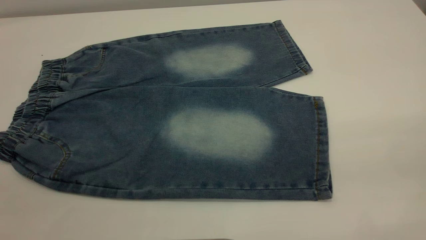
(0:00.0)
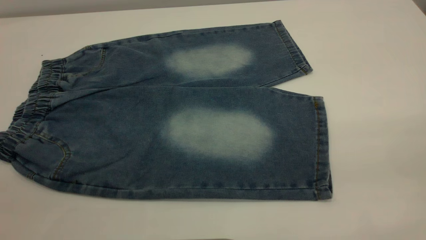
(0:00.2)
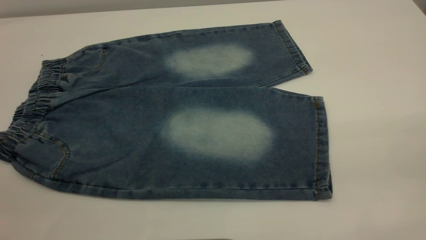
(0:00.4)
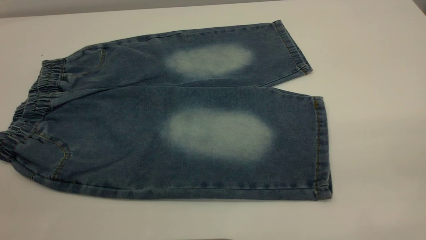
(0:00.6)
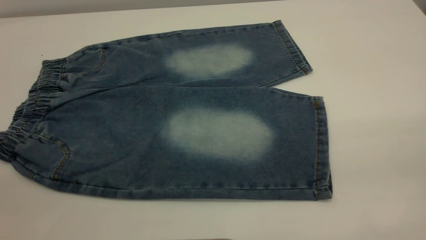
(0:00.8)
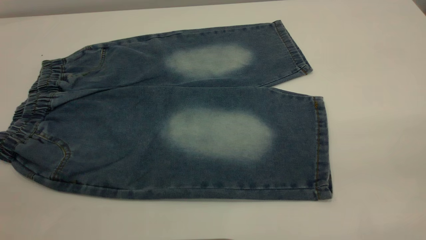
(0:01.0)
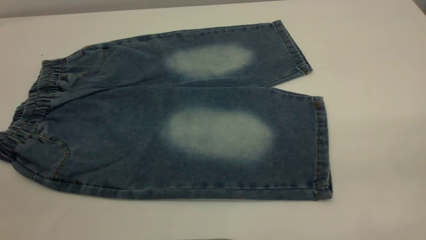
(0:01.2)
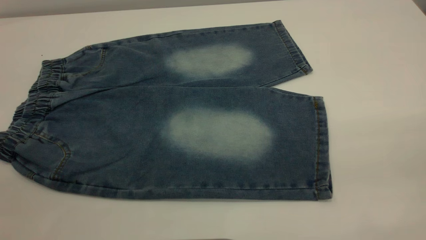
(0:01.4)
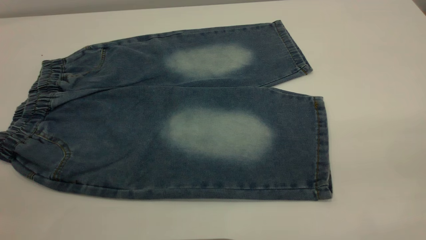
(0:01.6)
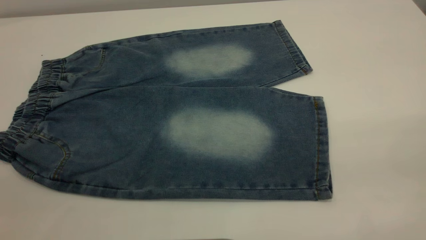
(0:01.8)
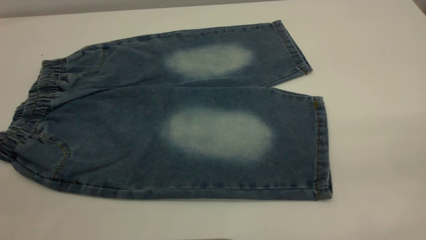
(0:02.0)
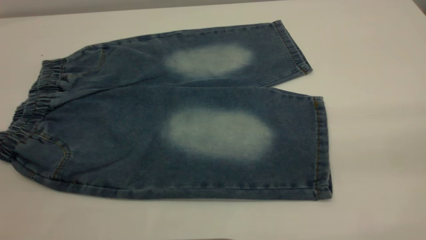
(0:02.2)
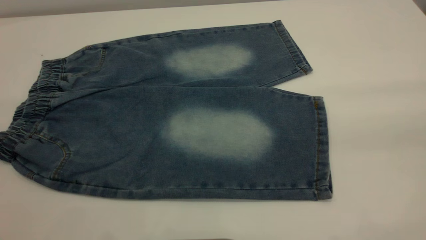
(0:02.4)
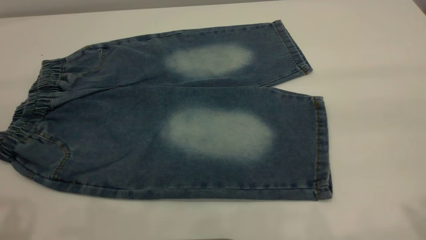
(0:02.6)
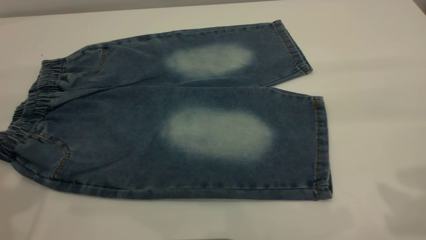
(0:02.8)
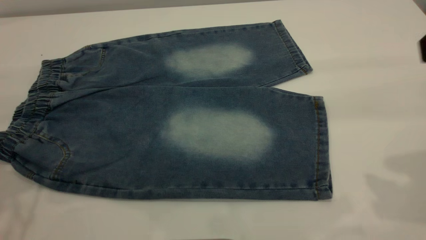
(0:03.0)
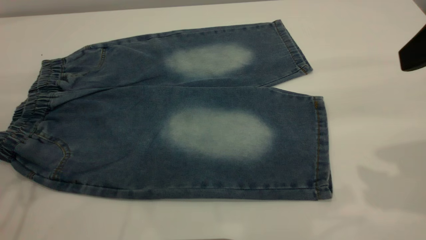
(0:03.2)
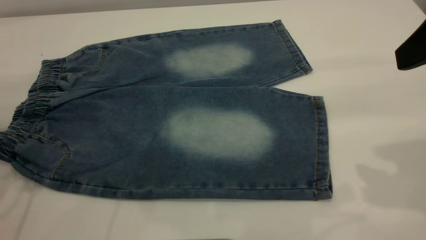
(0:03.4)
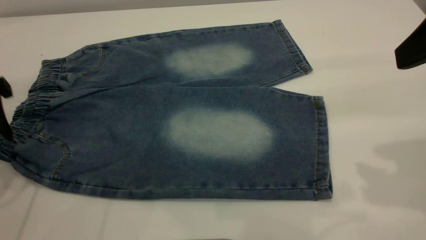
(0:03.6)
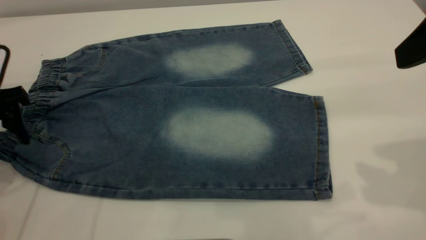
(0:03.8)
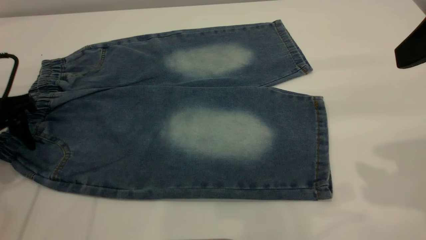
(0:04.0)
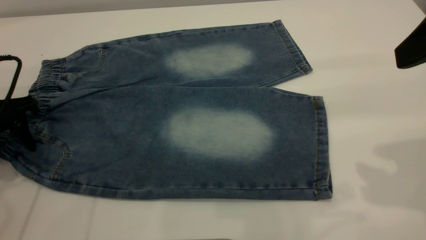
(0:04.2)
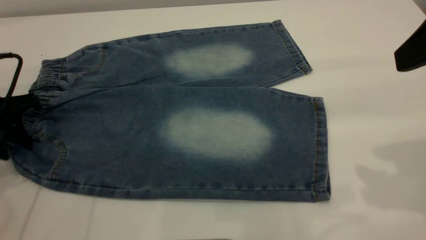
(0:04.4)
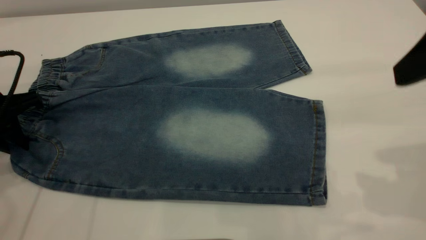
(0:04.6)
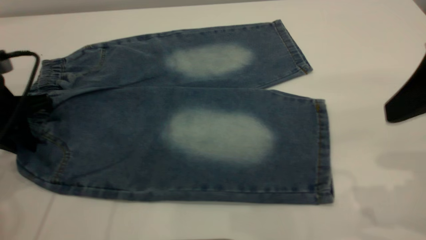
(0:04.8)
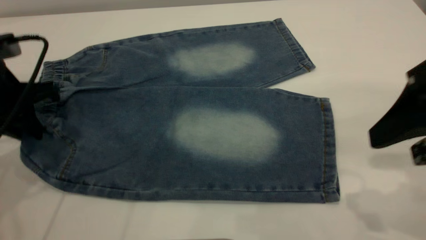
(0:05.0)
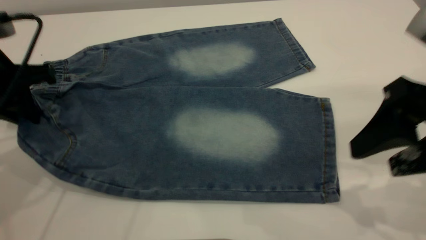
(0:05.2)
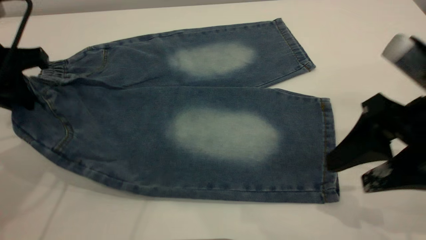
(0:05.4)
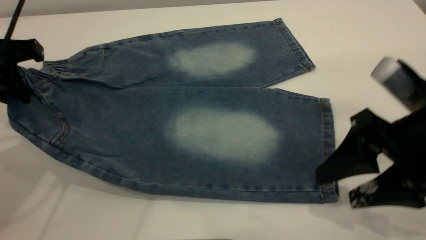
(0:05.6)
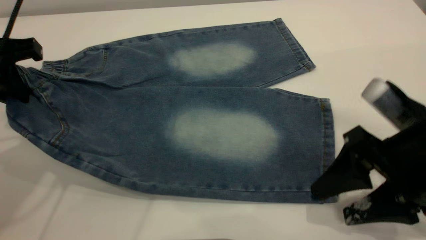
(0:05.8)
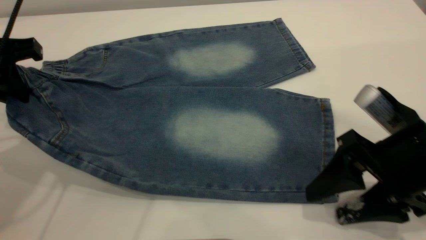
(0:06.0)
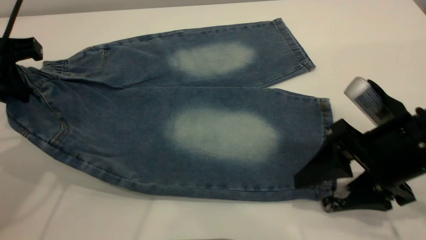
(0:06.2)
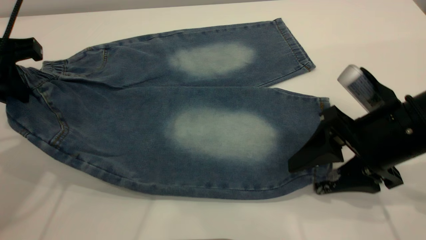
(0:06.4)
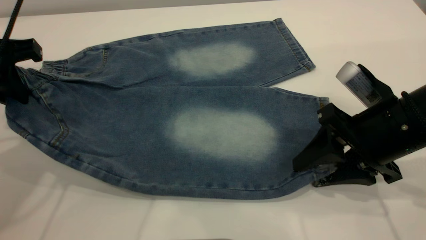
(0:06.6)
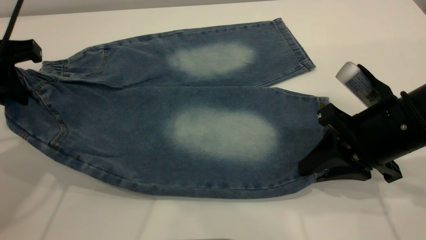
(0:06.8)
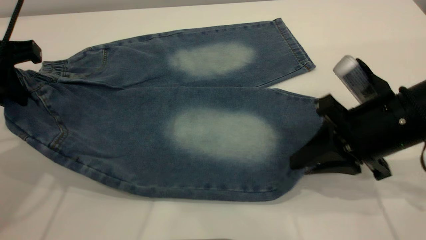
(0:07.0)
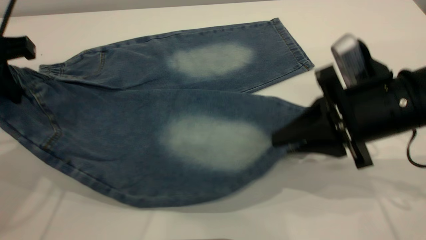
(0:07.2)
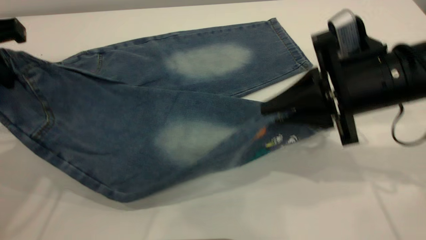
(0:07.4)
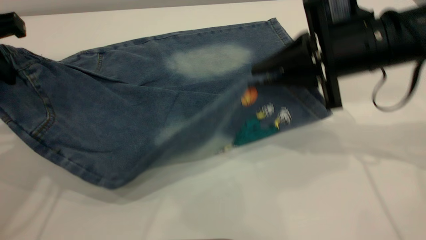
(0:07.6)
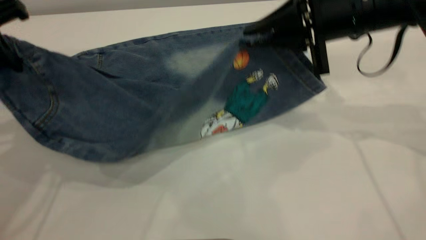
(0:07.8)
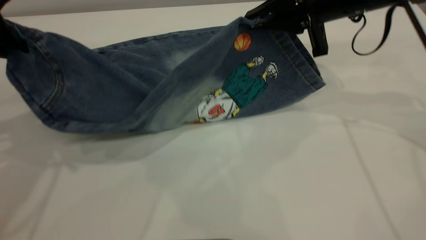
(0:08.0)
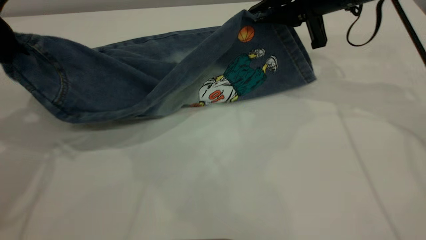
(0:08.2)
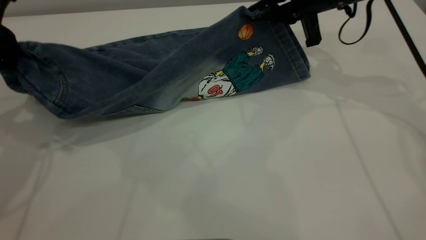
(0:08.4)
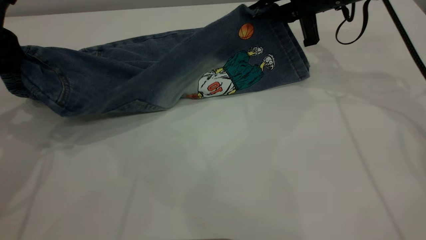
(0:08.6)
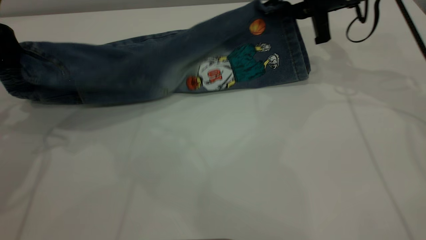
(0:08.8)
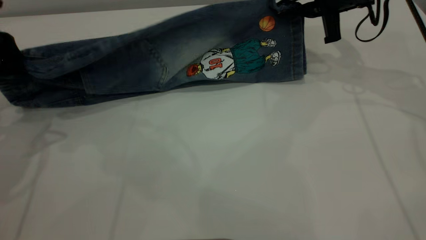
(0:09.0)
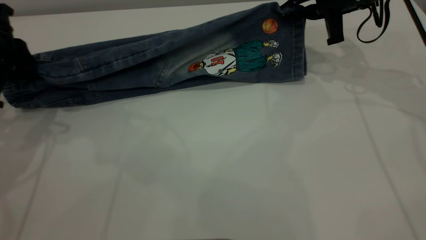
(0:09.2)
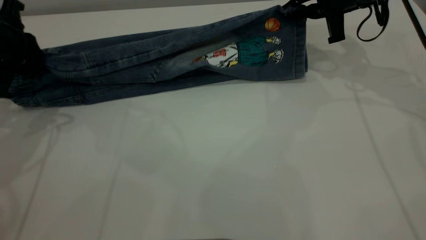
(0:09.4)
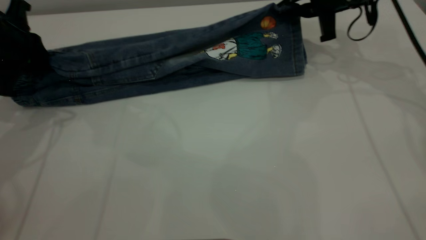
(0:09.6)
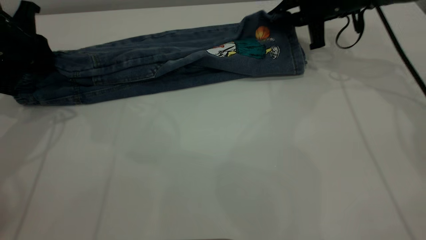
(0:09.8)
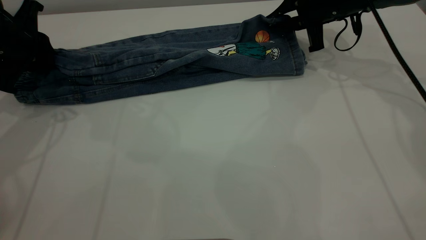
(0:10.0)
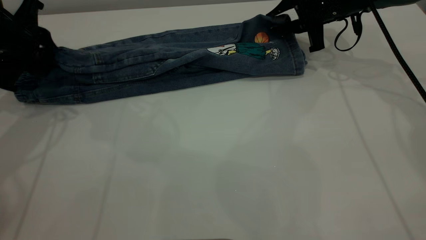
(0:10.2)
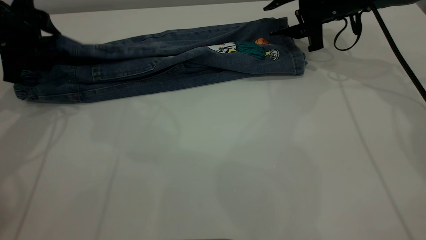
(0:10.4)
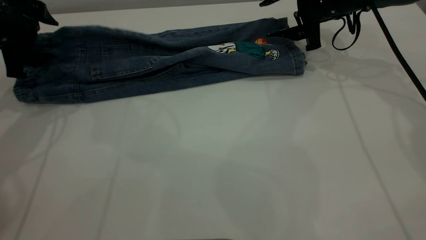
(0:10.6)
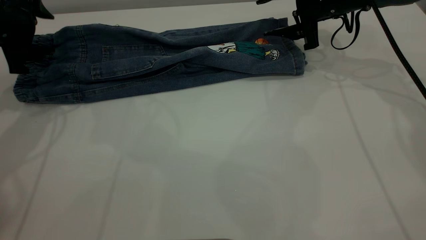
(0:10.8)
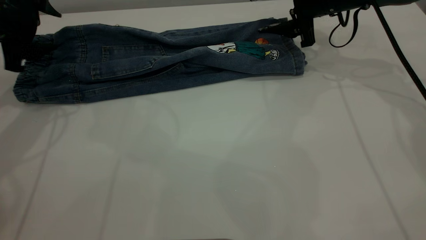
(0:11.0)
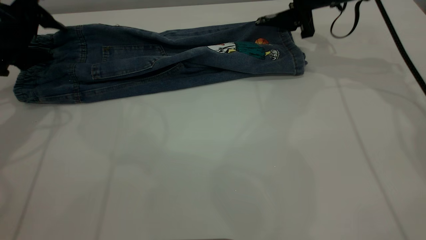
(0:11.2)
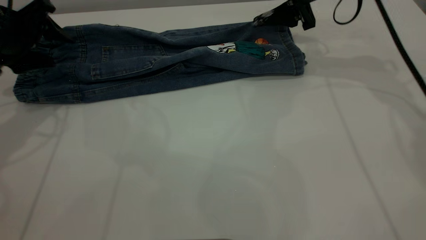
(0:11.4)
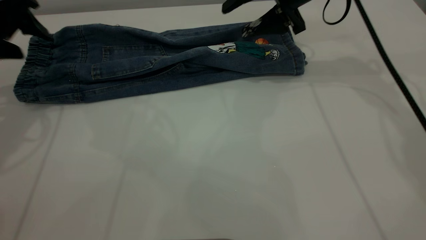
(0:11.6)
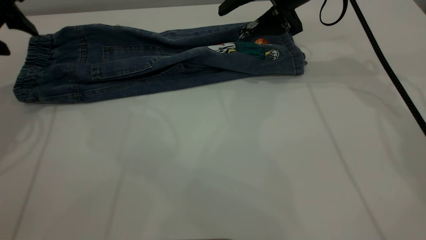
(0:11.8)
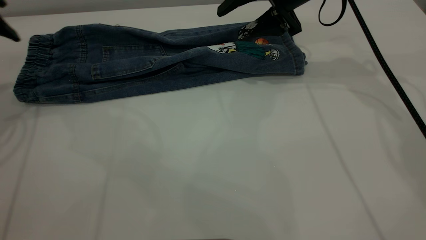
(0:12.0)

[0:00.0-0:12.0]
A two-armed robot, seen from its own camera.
0:00.0 to 0:01.6: Neither gripper changes place.
0:03.0 to 0:04.4: The left gripper heads downward and forward, covering about 15 cm, and closes up.
0:04.4 to 0:06.0: The right gripper travels downward by about 20 cm; the left gripper moves upward, some 10 cm.
0:06.0 to 0:07.6: The right gripper travels forward and upward by some 15 cm, and closes up.
0:07.6 to 0:09.0: The right gripper shifts about 15 cm forward; the left gripper is displaced downward by about 5 cm.
0:09.0 to 0:10.4: The left gripper is displaced forward by approximately 5 cm, and opens; the right gripper ends up about 5 cm from where it was, and opens its fingers.
0:10.4 to 0:12.0: The right gripper is displaced to the left and upward by about 10 cm. Meanwhile the left gripper moves to the left, approximately 5 cm.

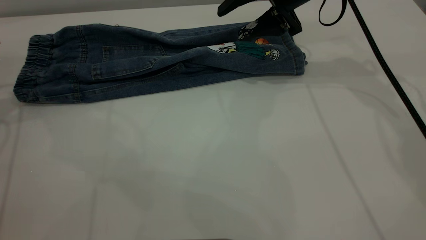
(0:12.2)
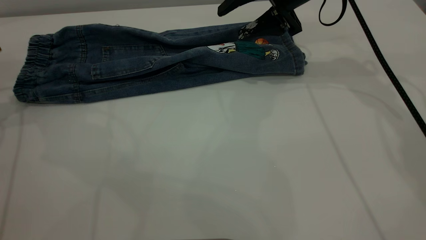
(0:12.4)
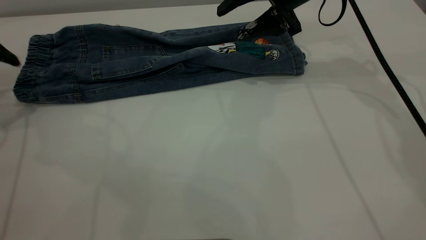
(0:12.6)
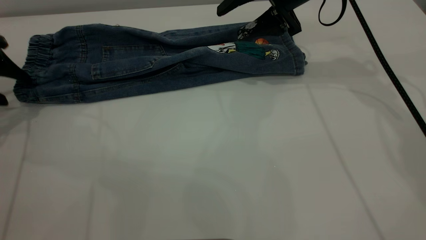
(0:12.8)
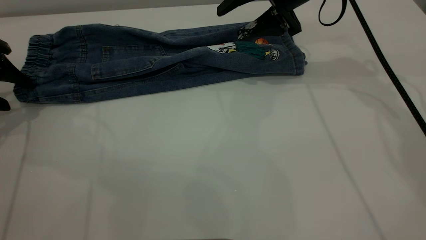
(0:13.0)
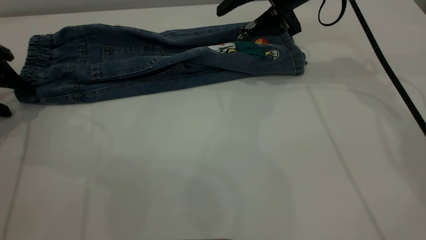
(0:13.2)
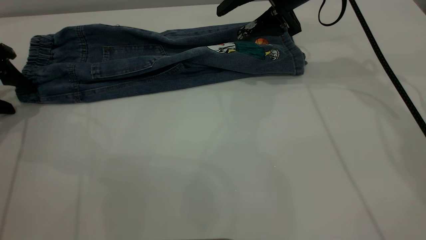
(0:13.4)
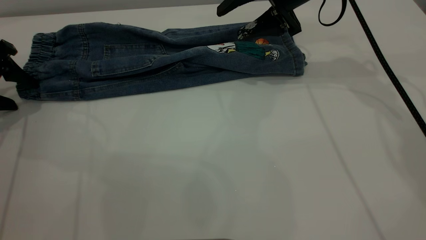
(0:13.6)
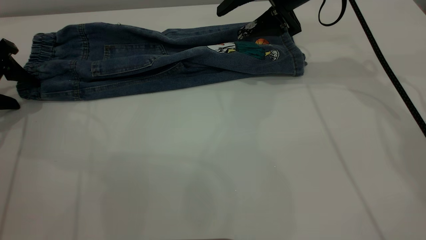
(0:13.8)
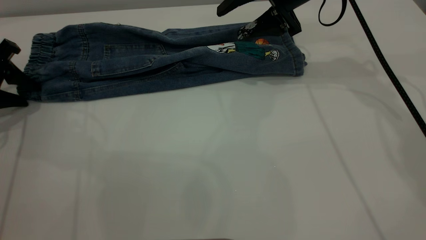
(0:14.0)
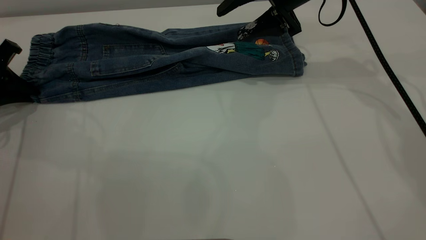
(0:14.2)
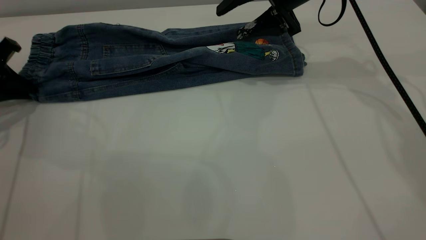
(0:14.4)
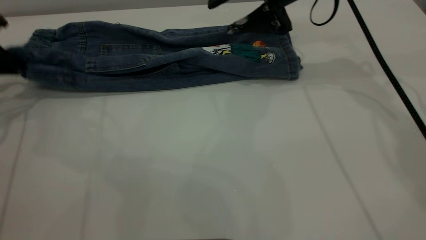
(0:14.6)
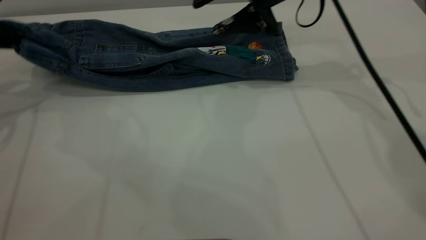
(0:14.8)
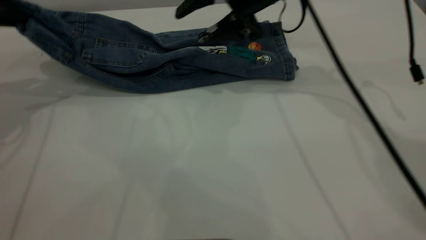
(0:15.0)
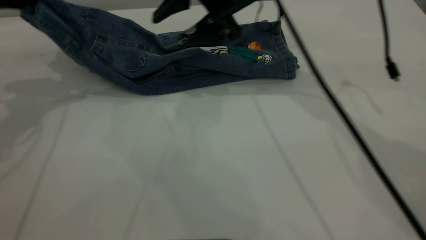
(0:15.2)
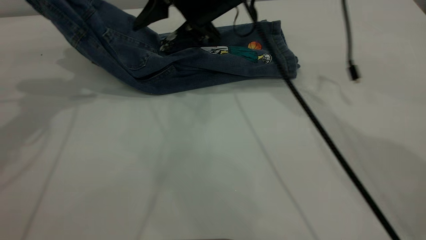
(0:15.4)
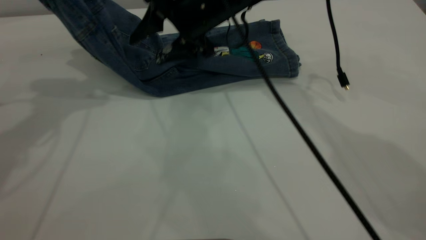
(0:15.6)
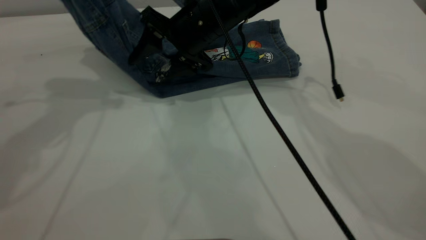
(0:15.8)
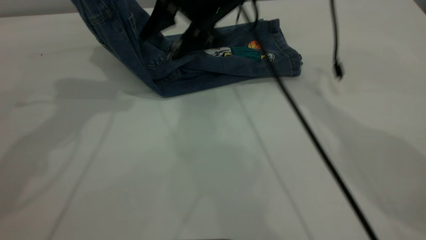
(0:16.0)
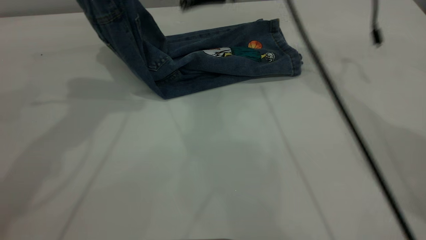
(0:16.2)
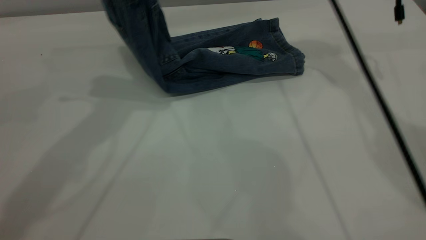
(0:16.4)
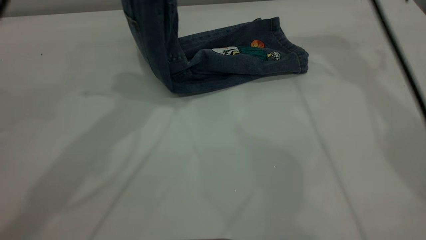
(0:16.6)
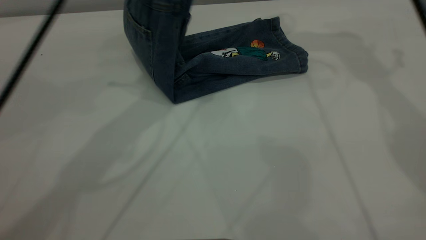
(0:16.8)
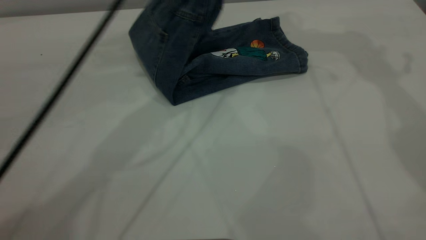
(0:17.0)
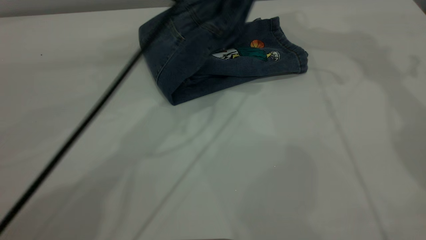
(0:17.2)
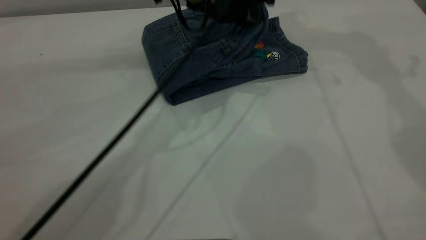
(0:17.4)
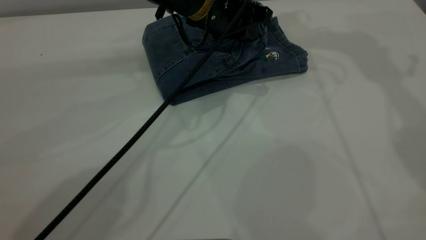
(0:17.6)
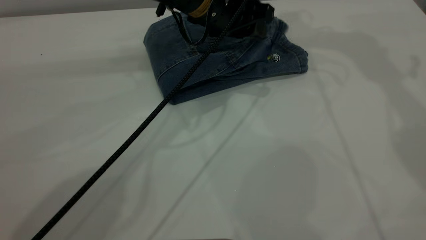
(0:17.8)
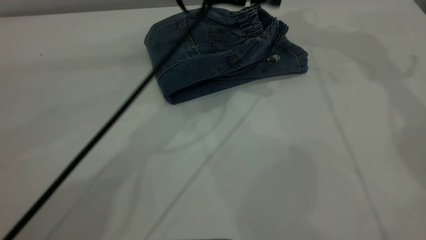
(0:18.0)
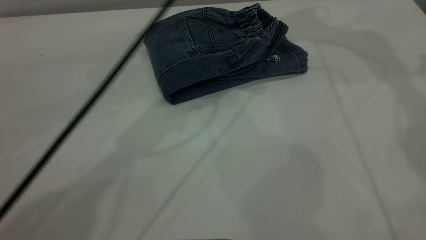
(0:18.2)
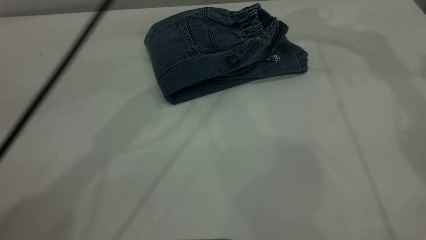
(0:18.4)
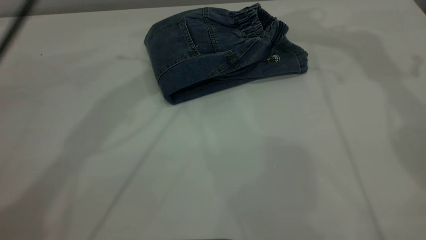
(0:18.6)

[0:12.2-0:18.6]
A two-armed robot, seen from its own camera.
Step, 0:12.6 to 0:18.4: Fold the pants from left to right.
0:12.2 to 0:13.8: The left gripper heads downward, covering about 5 cm.
0:13.8 to 0:15.4: The right gripper goes approximately 15 cm to the left; the left gripper heads upward and to the right, covering some 15 cm, and closes up.
0:15.4 to 0:17.0: The left gripper travels to the right by approximately 25 cm, while the right gripper moves upward and to the right, roughly 25 cm.
0:17.0 to 0:18.6: The left gripper travels upward and to the left by some 10 cm, and opens its fingers.
